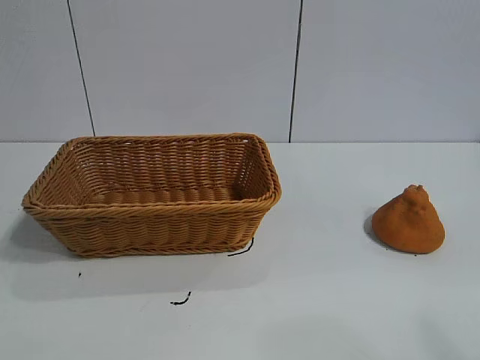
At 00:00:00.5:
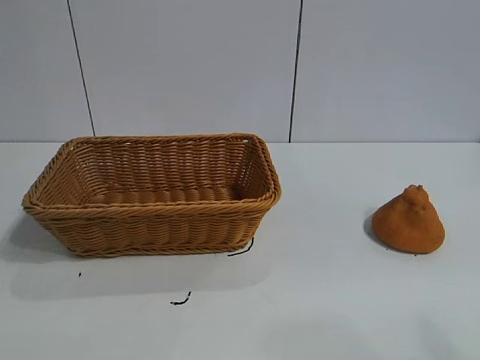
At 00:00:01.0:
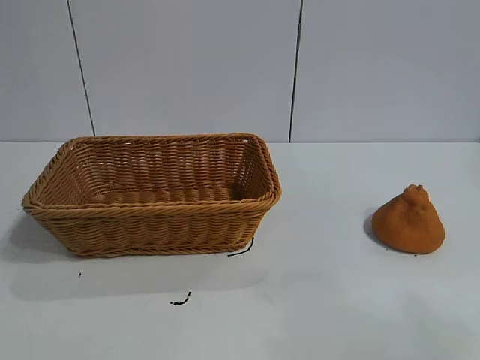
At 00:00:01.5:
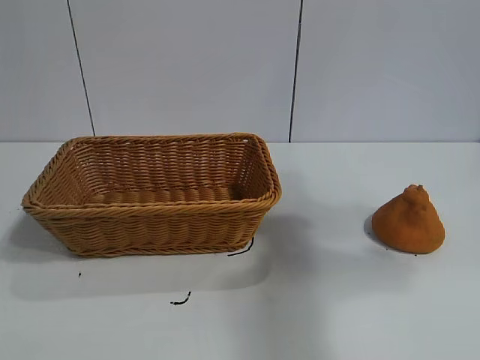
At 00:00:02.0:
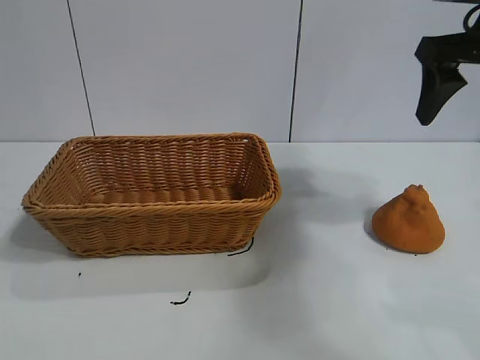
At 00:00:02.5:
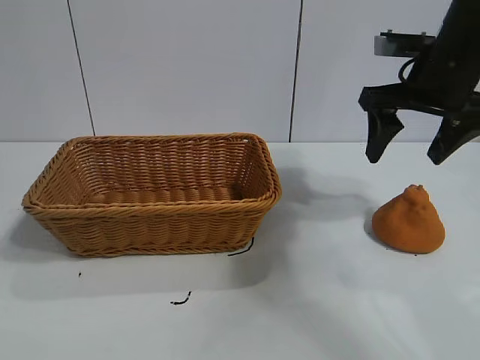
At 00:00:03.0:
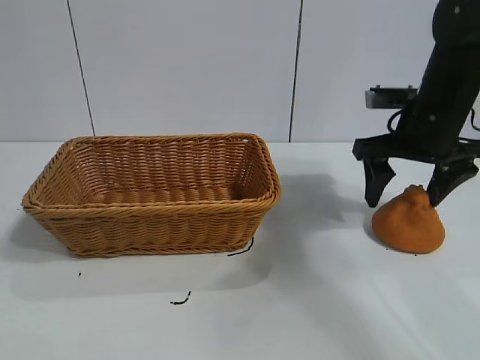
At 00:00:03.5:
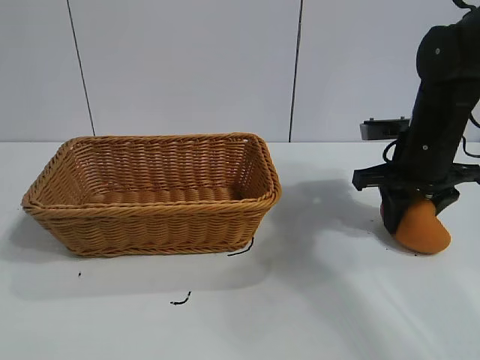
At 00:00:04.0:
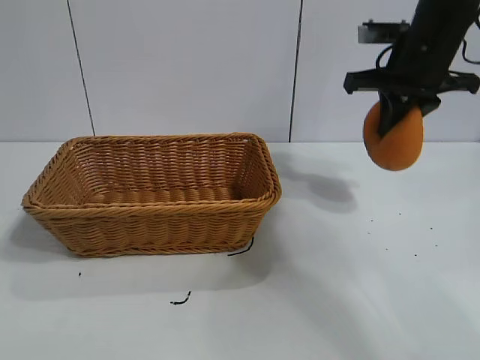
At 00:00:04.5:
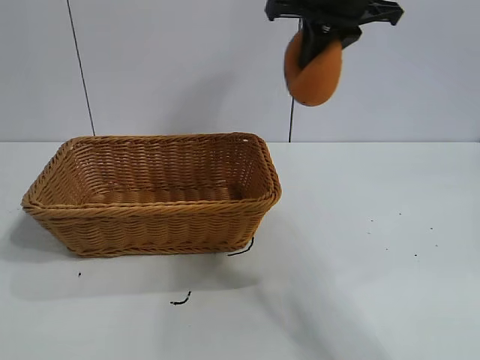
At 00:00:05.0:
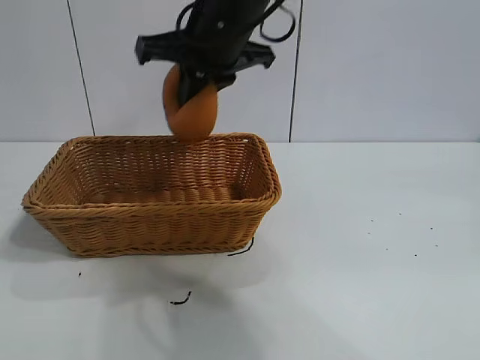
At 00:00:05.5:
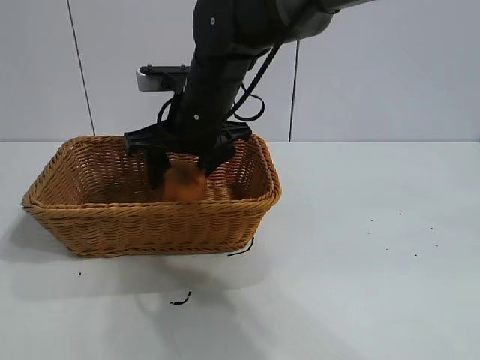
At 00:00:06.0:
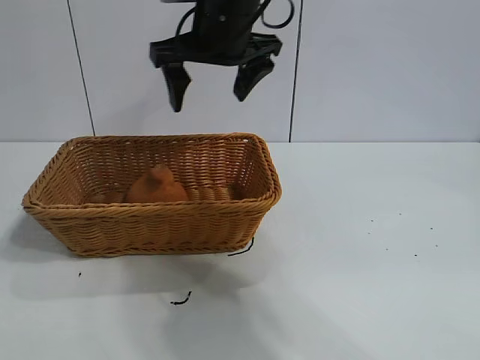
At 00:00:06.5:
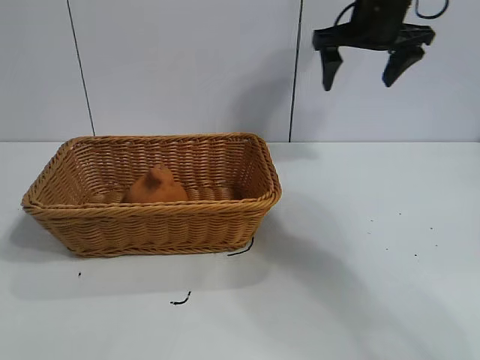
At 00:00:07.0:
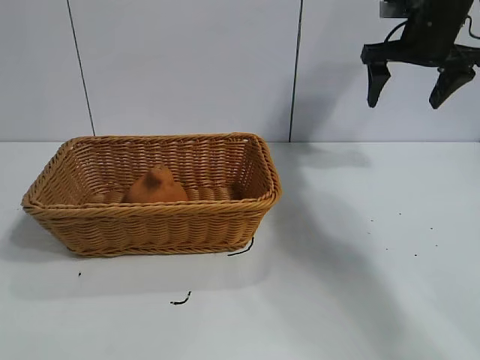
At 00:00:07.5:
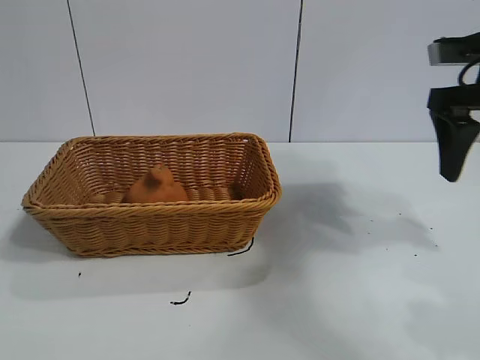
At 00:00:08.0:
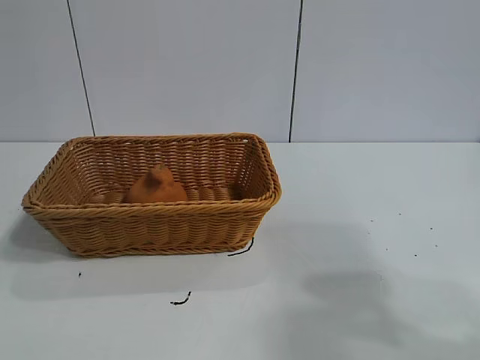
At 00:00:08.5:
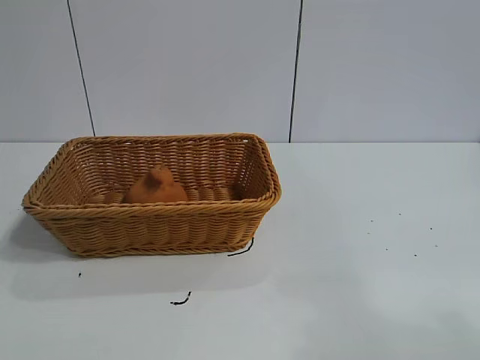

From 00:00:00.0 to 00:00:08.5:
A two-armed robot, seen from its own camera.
Task of the whole recording: pick up the orange and put it into the basket.
Step, from 00:00:01.0 to 00:00:03.5: Grasp the orange with right gripper.
Step, from 00:00:04.0 to 00:00:05.5: Place the orange in the basket with right gripper.
